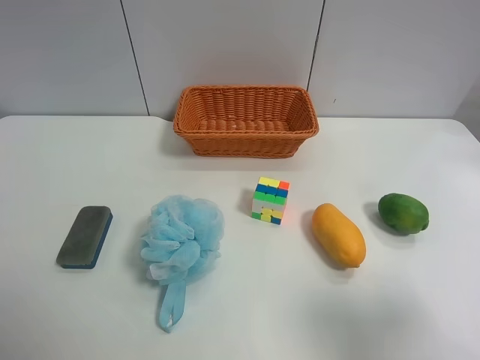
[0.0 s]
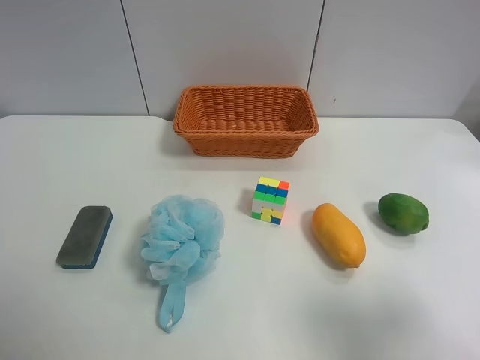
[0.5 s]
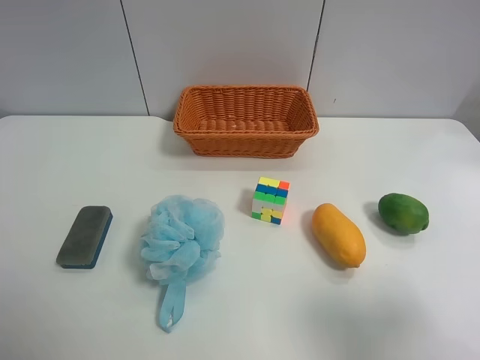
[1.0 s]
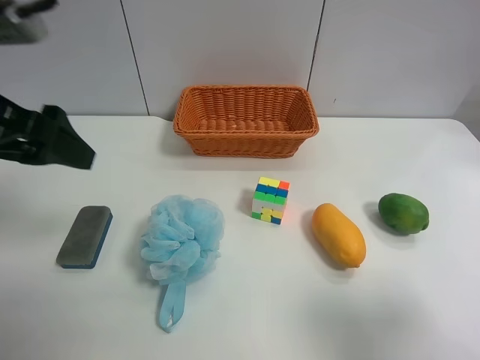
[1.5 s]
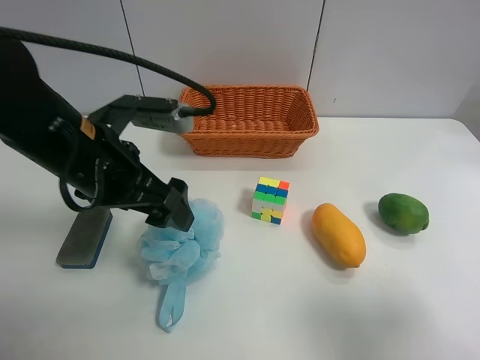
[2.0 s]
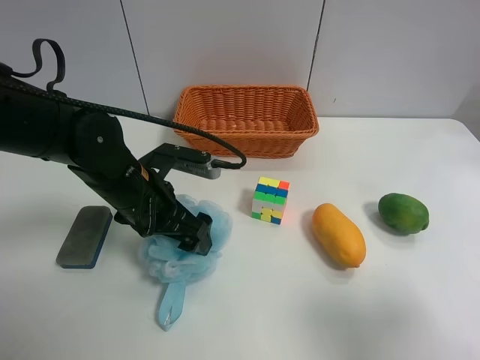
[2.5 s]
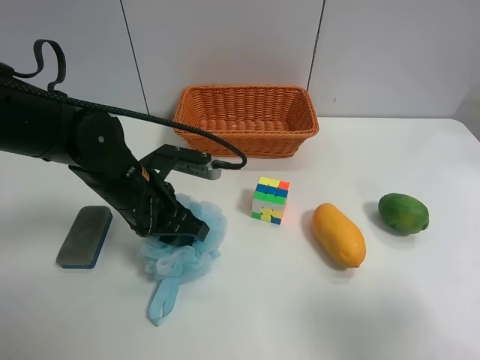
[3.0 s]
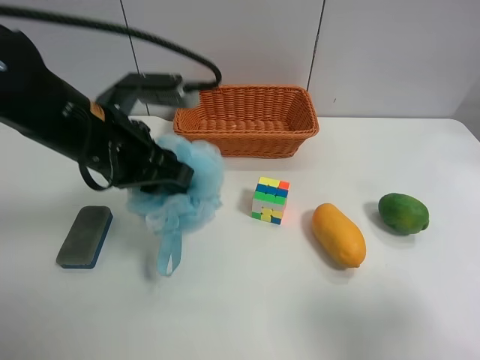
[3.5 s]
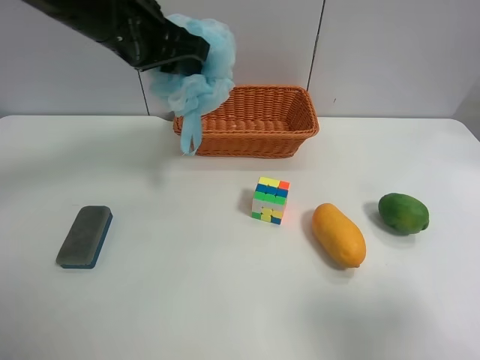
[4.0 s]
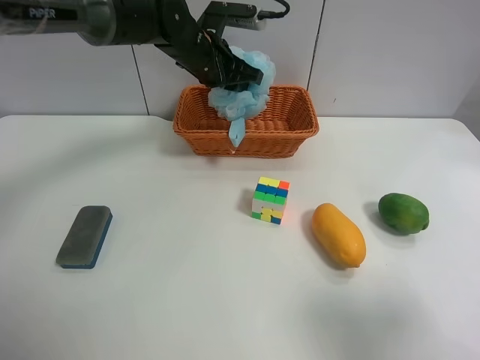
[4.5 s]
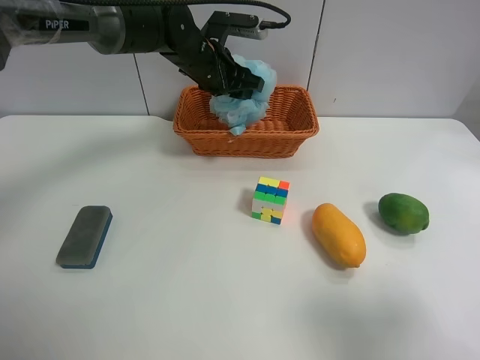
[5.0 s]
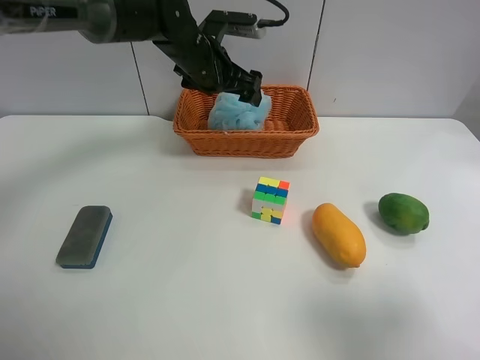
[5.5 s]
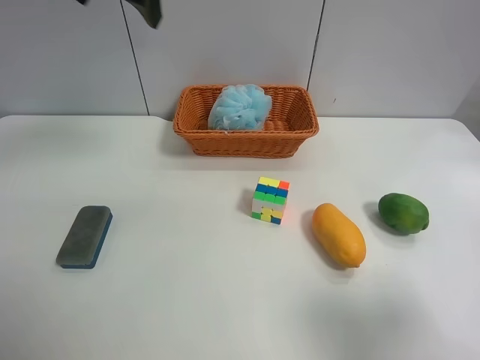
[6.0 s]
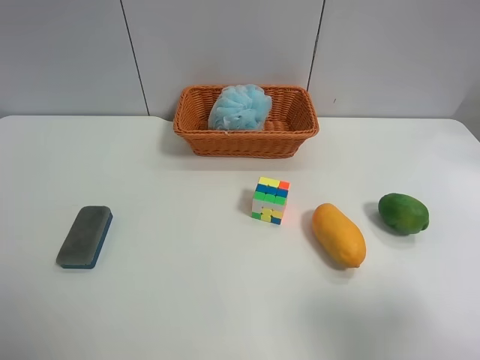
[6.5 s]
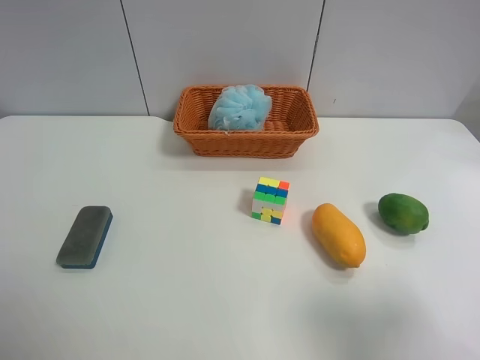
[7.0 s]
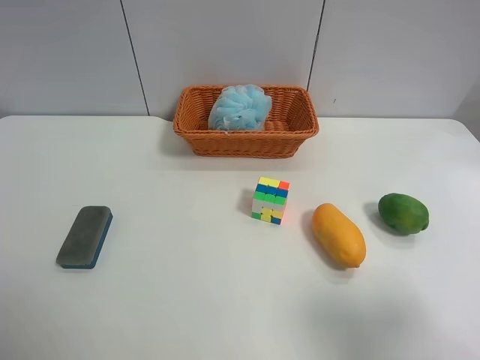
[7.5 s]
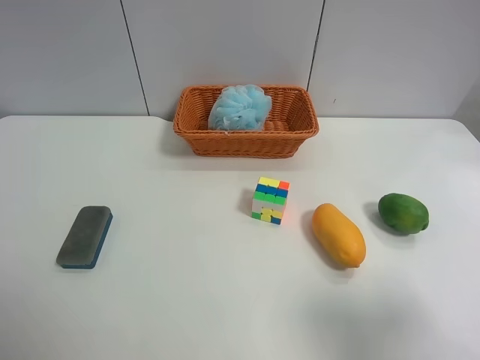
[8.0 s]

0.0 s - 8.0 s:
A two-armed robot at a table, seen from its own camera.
Task of the whole recording: use the left gripper to grab items from the table and place them in the basket.
Step, 0.0 s - 2.5 s: Grasp the Shower puff with the left gripper.
Step, 3.0 s - 5.0 s: Place the Shower puff into the basket with the left gripper.
0.0 s - 2.0 s: The left gripper heads forward and to the right, covering some 30 cm.
2.0 s - 4.0 s: The left gripper heads forward and upward, covering about 15 cm, and closes.
4.0 s - 6.0 s: The left gripper shifts some 10 cm upward, and opens.
6.0 s - 8.0 s: The left gripper shifts about 40 cm backward and to the left.

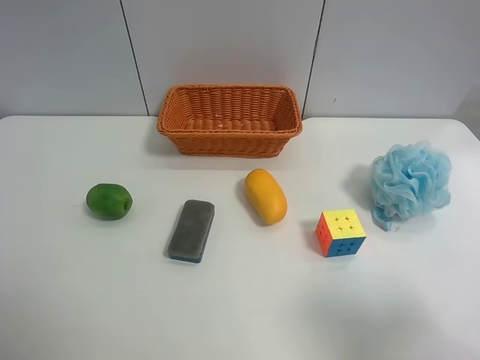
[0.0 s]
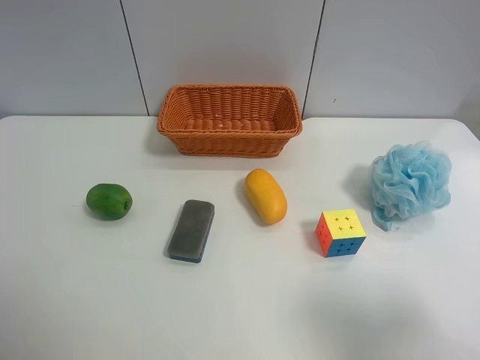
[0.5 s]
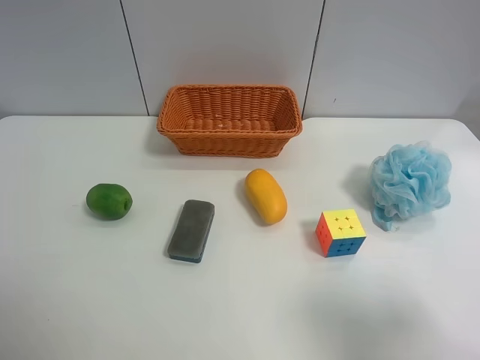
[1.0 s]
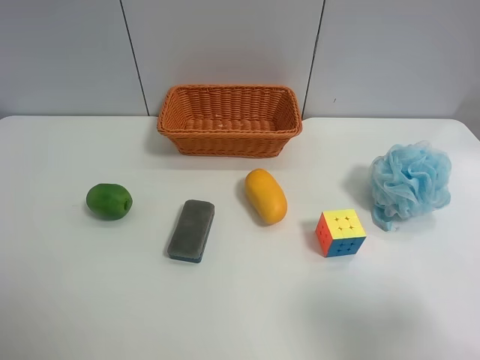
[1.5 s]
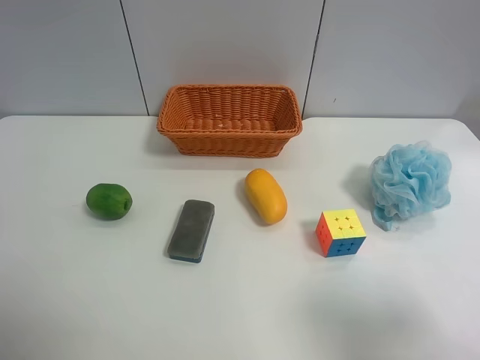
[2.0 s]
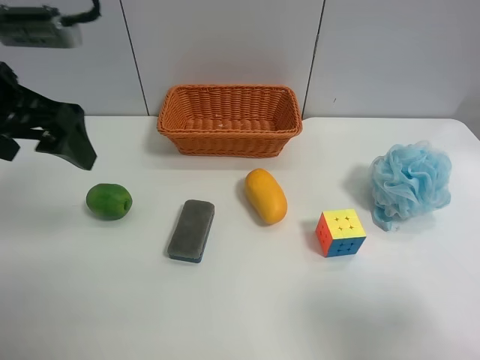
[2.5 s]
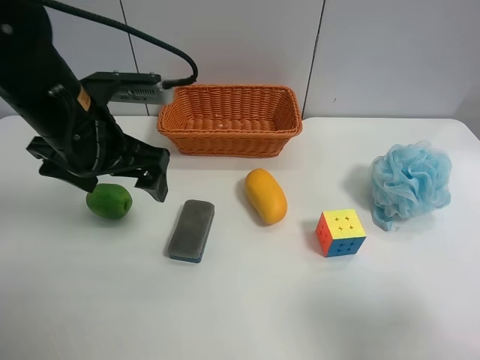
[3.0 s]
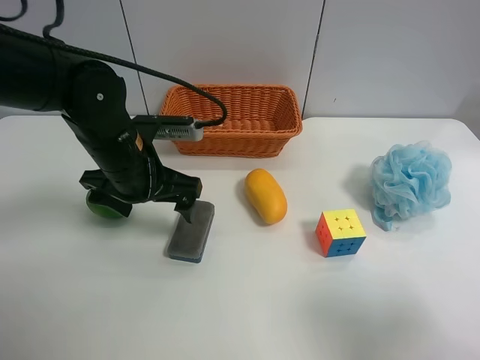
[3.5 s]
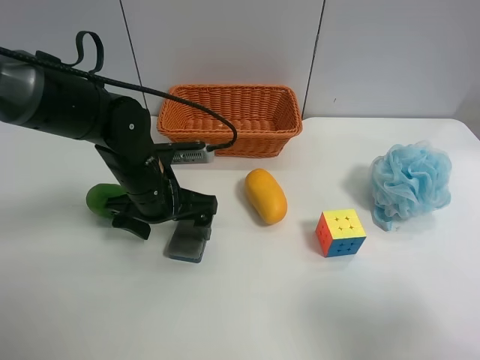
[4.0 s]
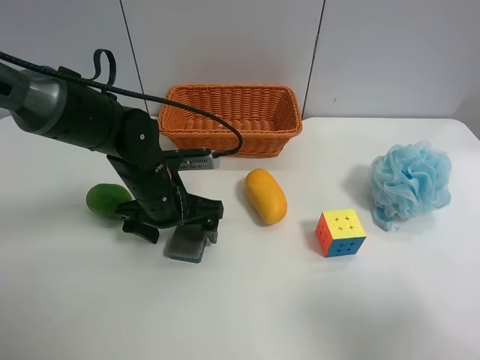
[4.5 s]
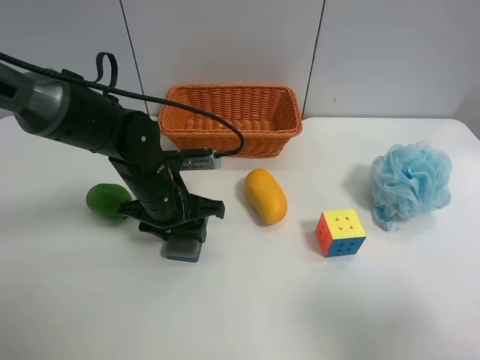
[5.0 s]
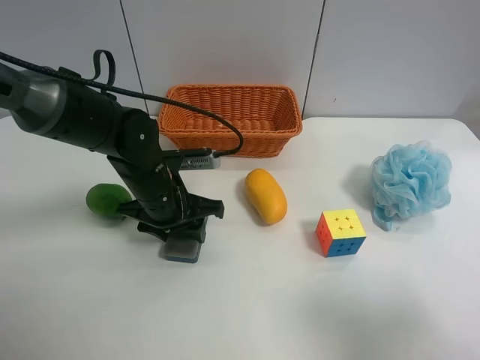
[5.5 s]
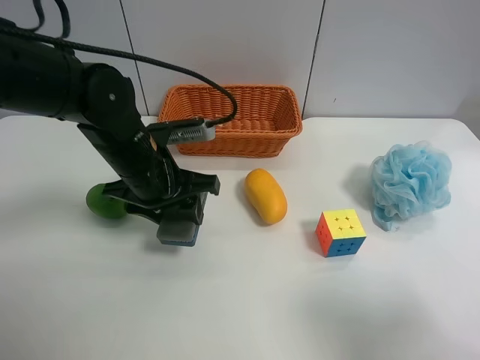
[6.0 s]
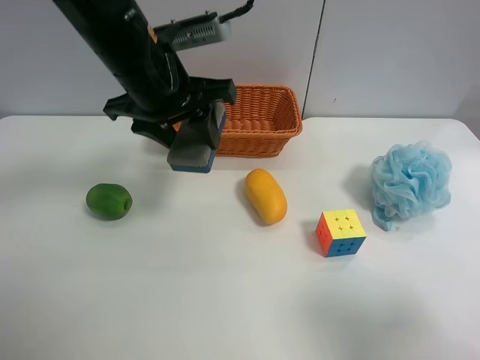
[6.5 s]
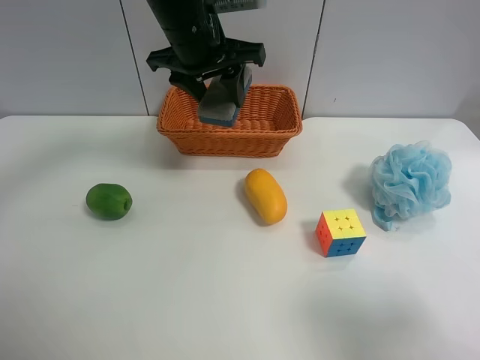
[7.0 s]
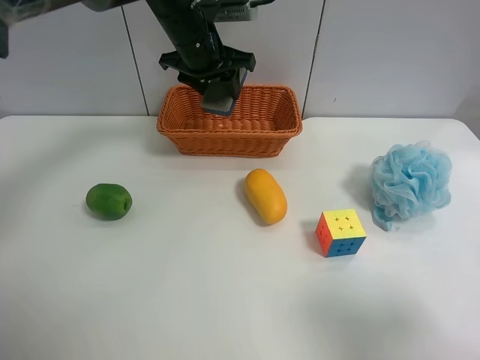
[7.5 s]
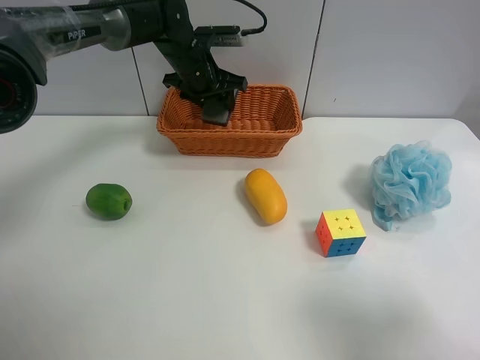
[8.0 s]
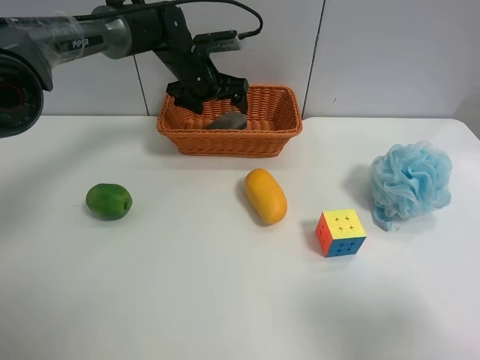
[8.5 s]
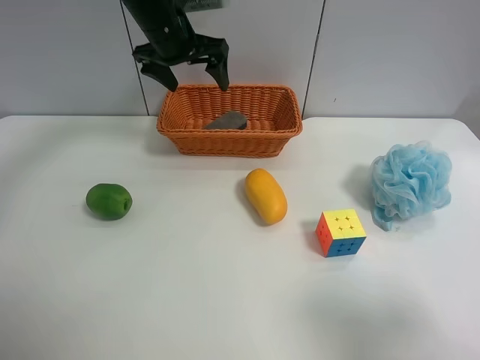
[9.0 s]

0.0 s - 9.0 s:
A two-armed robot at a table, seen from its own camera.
Task of the whole recording: use the left gripper to grab items from the table and place them in the basket.
Step, 0.0 s - 5.5 s: Grasp the chalkboard eraser with the left gripper.
Step, 6.0 s - 8.5 s: Place the chalkboard eraser into the basket with the left gripper.
2.0 s - 4.5 s: The left gripper travels downward, to the right and forward by about 35 cm.
4.5 s - 7.0 s: The left gripper moves upward and forward, about 20 cm, and closes its fingers.
7.0 s - 9.0 s: The left gripper travels forward and to the left by about 10 cm, and opens up.

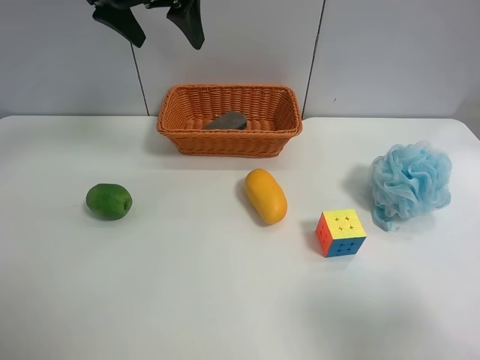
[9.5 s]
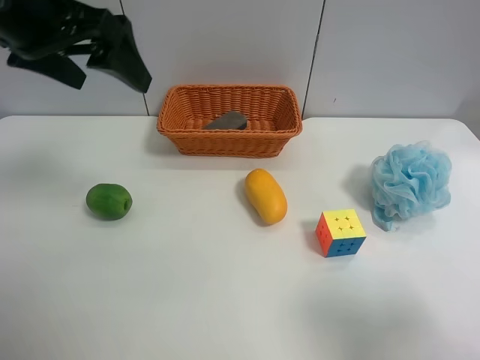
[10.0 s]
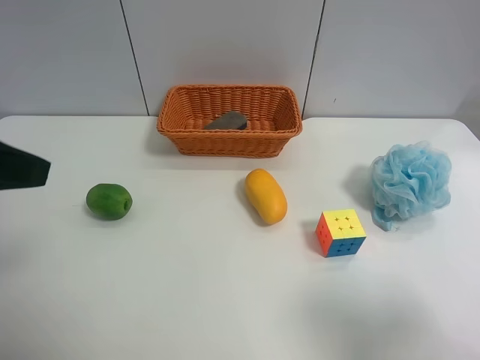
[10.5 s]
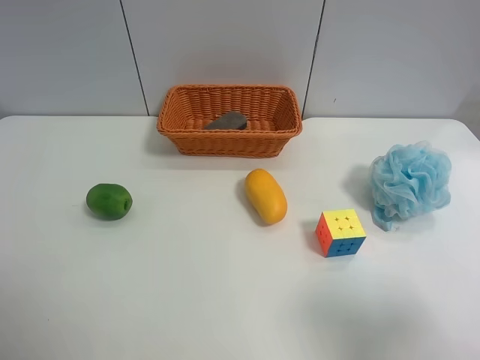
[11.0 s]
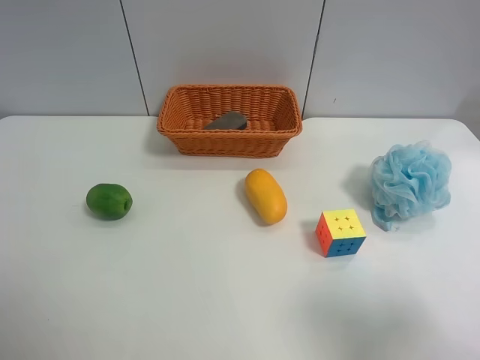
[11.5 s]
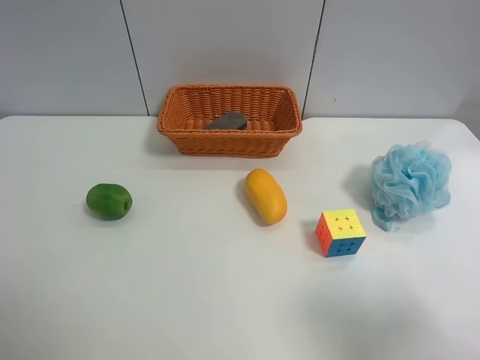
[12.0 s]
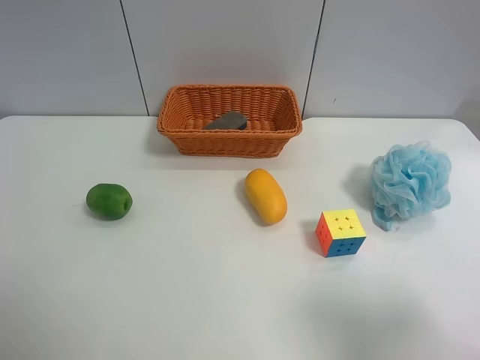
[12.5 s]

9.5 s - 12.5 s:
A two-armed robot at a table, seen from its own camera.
Task of the whole recording: use the left gripper to grab items from the table and place them in the basket.
9.5 s - 11.0 s: The left gripper shifts approximately 40 cm backward and to the left.
